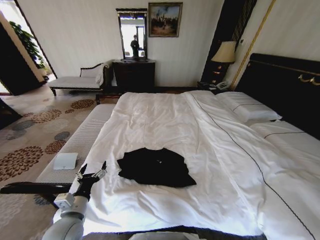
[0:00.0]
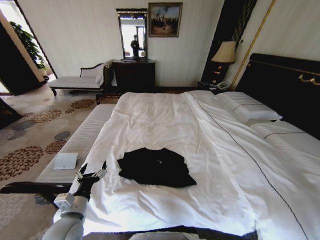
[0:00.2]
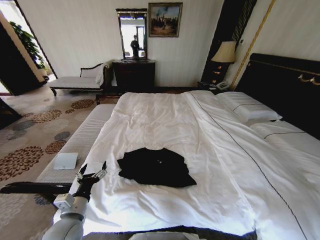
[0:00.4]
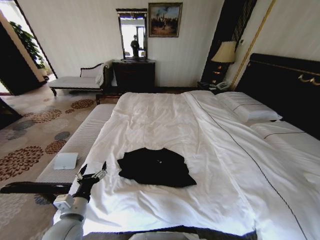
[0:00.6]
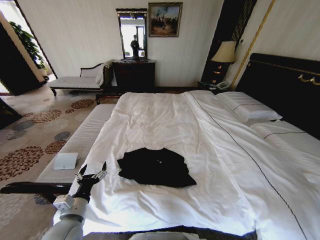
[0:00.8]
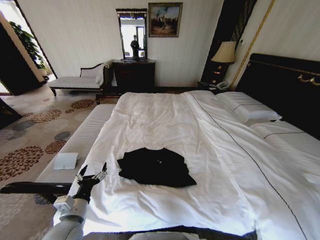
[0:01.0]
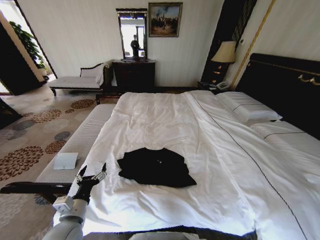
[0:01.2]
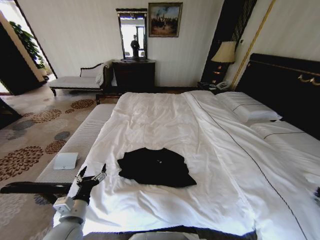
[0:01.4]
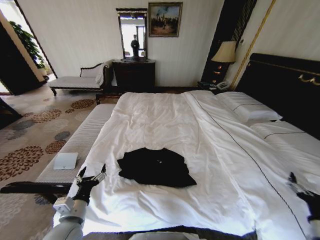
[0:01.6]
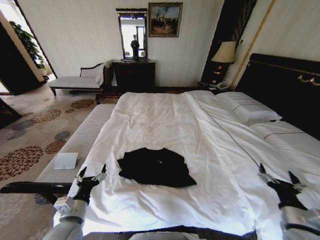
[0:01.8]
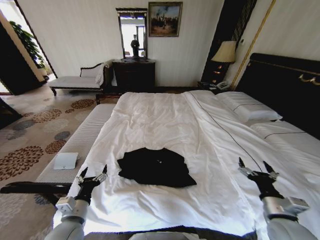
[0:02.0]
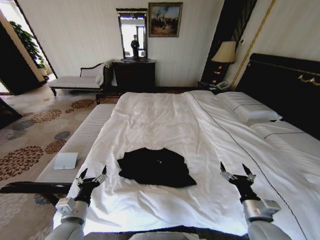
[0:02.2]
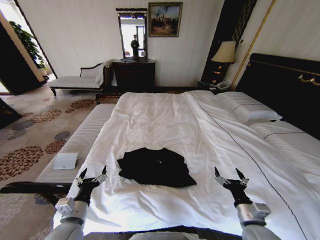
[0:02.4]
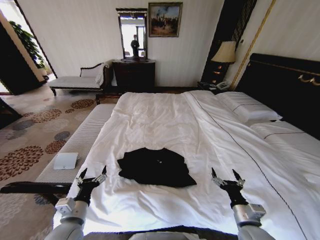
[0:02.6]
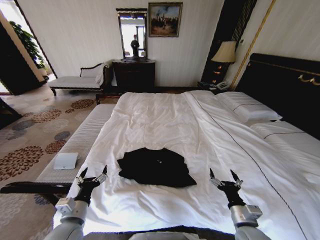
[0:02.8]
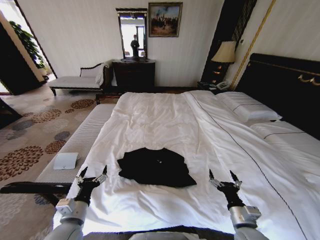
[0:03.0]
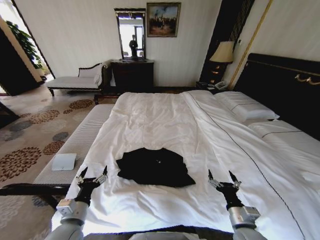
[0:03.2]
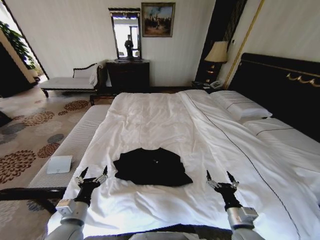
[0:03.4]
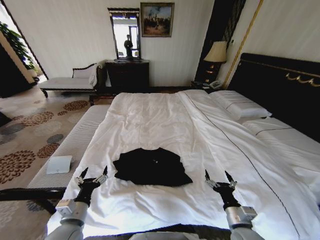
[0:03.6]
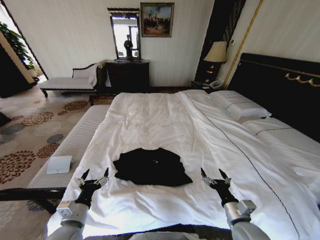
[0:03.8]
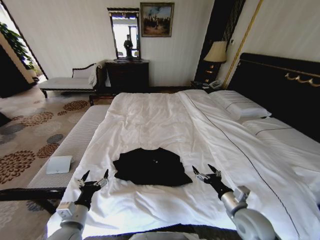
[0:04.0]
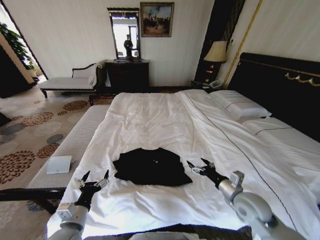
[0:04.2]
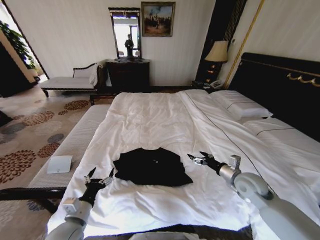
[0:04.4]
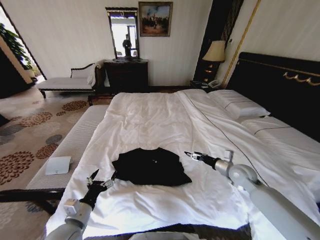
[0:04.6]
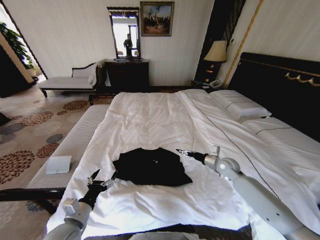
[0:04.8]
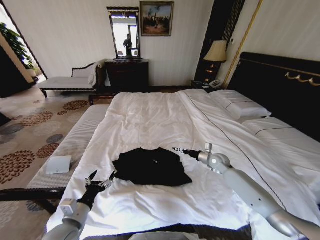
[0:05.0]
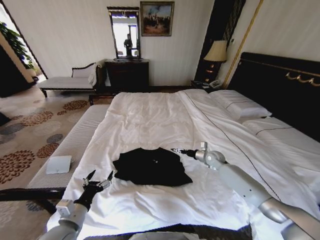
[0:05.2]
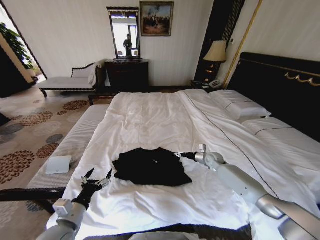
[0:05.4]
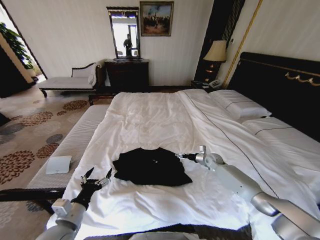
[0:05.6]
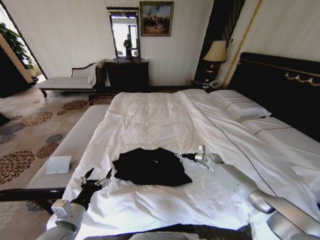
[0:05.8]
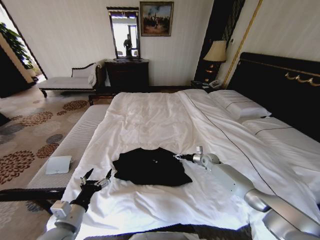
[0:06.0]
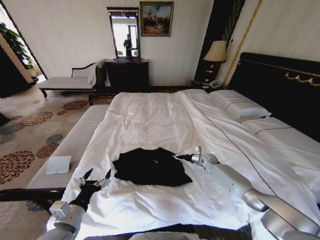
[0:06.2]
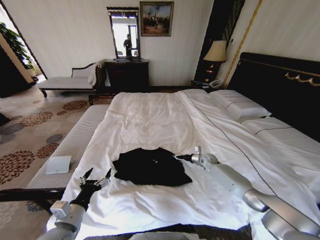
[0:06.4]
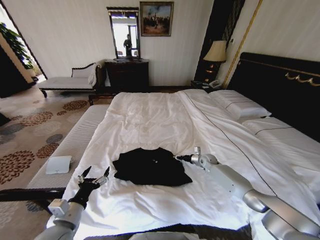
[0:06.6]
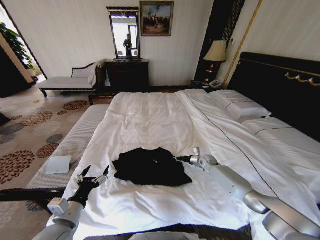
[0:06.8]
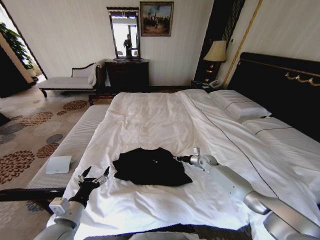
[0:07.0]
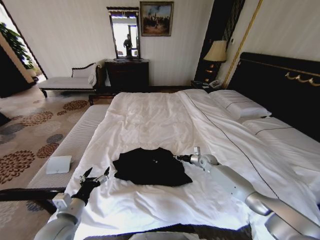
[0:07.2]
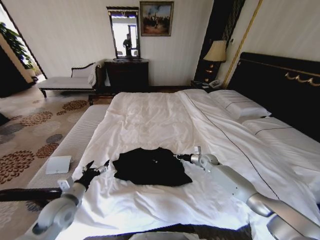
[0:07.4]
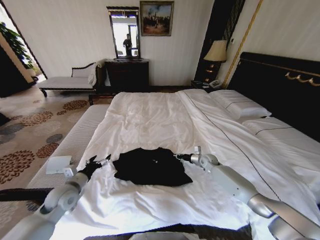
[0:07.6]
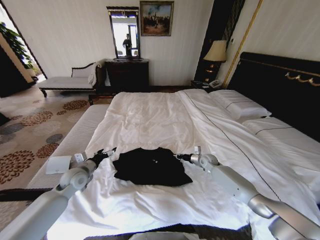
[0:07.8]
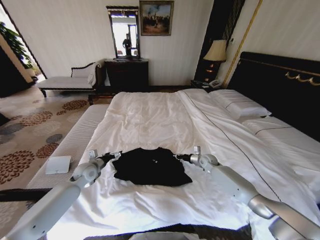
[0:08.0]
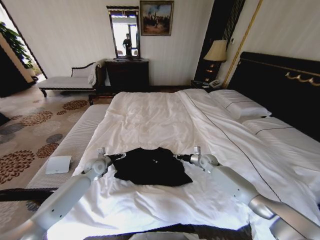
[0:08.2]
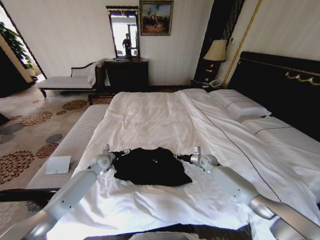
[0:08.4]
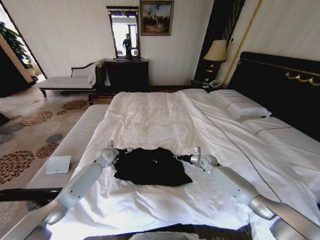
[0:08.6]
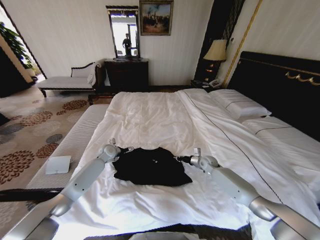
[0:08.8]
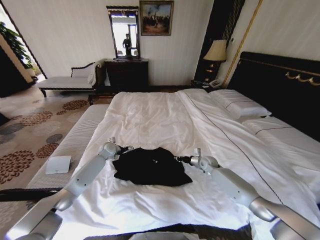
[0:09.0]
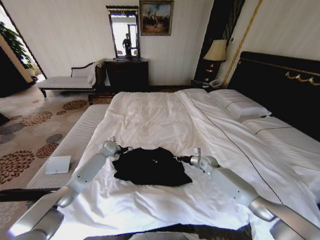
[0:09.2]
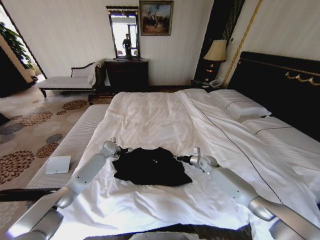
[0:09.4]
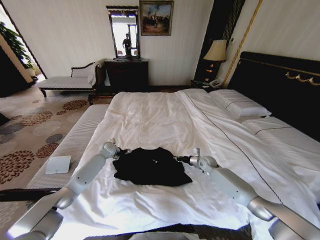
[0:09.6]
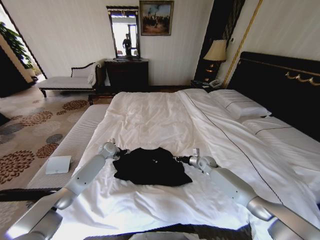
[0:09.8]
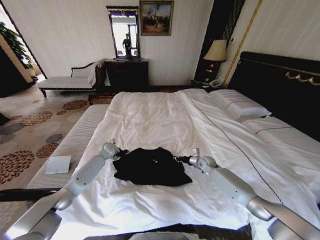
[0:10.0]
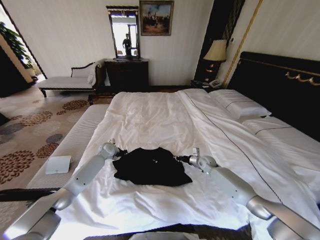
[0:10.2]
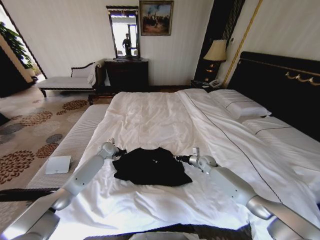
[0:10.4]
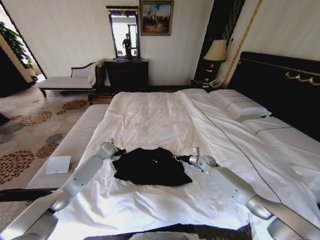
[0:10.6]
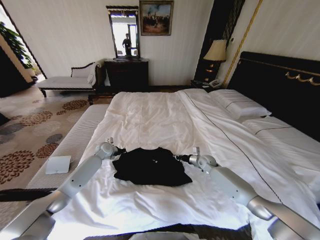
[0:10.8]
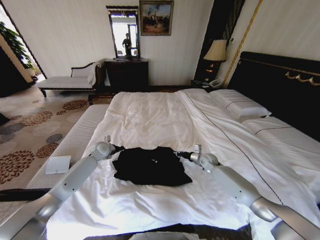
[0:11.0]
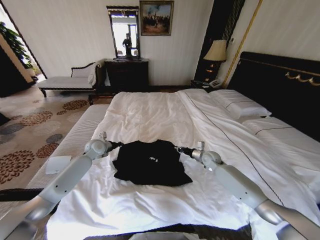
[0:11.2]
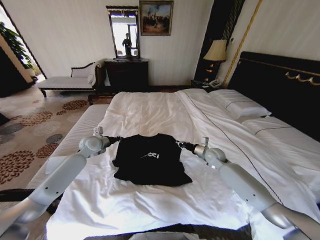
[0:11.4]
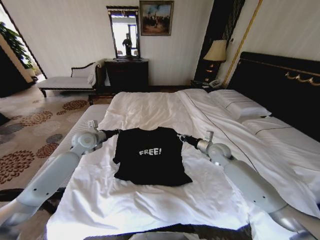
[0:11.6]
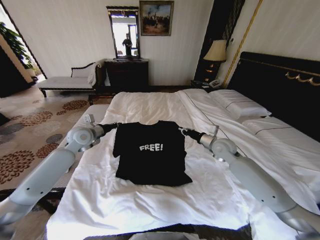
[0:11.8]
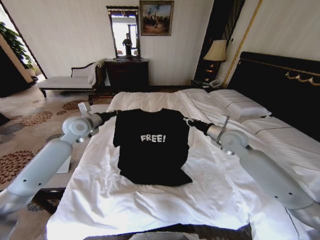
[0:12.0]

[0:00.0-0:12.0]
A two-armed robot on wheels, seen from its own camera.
Task of the whole recording: Fold the clothes on the bed.
0:00.0 to 0:01.6: The right gripper heads to the left and forward, covering about 20 cm, and opens its fingers.
0:01.6 to 0:03.0: The right gripper goes approximately 15 cm to the left.
0:03.0 to 0:04.4: The right gripper moves forward and upward, some 20 cm.
0:04.4 to 0:06.0: The right gripper heads forward and downward, covering roughly 25 cm.
0:06.0 to 0:07.6: The left gripper shifts roughly 15 cm forward and to the left. Meanwhile the right gripper closes its fingers.
0:07.6 to 0:09.0: The left gripper is displaced forward by about 25 cm.
0:09.0 to 0:10.4: The left gripper closes its fingers.
0:10.4 to 0:12.0: The grippers both shift upward by roughly 25 cm.

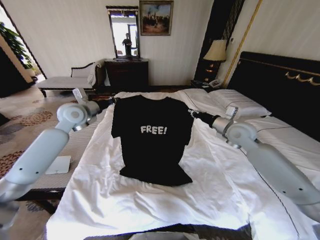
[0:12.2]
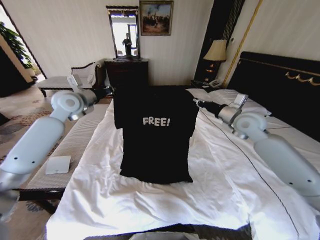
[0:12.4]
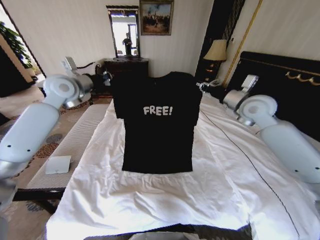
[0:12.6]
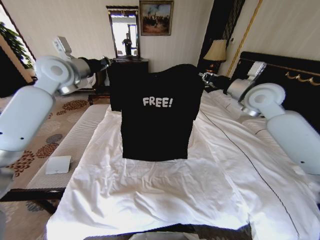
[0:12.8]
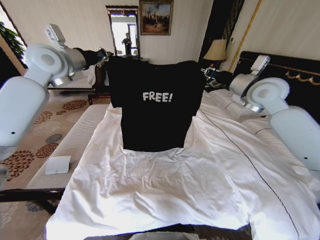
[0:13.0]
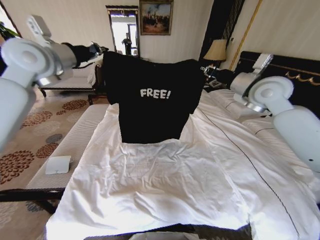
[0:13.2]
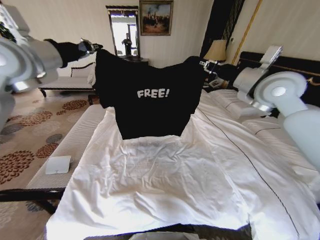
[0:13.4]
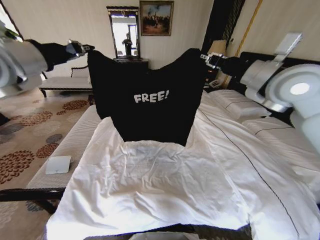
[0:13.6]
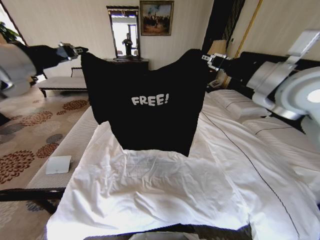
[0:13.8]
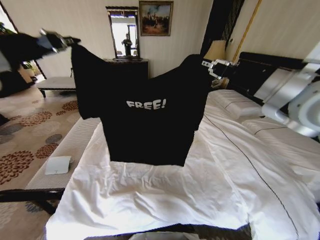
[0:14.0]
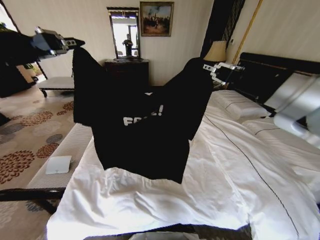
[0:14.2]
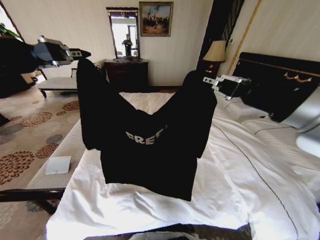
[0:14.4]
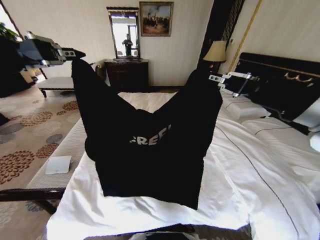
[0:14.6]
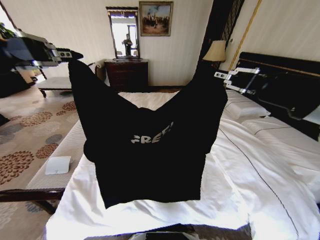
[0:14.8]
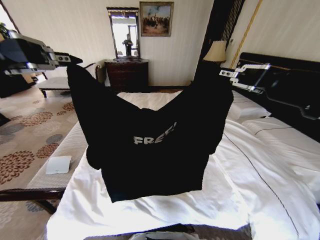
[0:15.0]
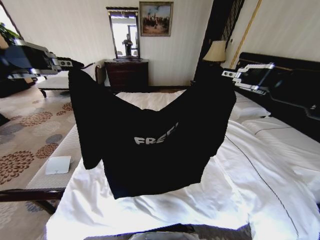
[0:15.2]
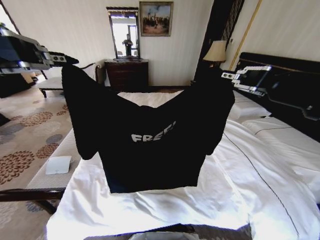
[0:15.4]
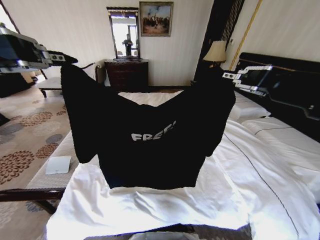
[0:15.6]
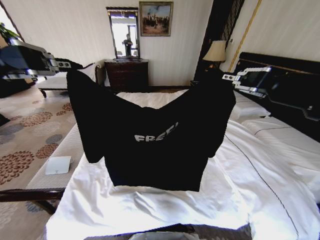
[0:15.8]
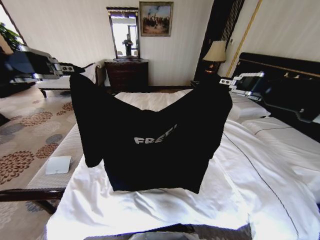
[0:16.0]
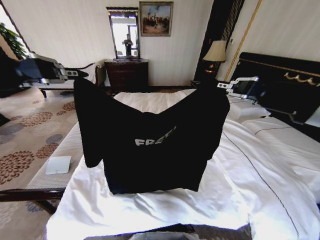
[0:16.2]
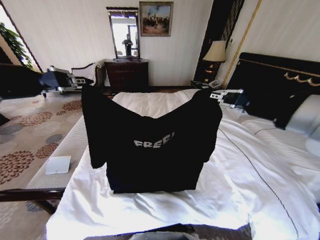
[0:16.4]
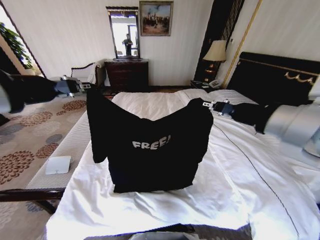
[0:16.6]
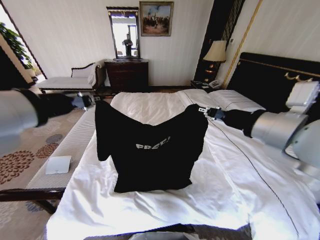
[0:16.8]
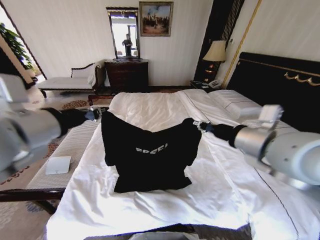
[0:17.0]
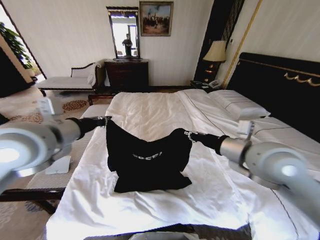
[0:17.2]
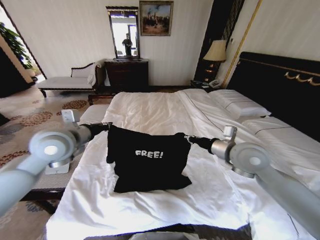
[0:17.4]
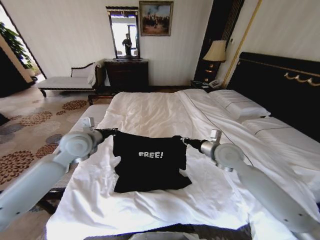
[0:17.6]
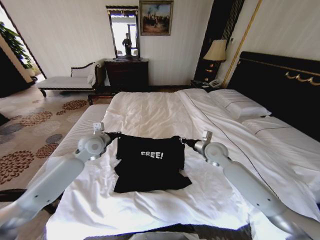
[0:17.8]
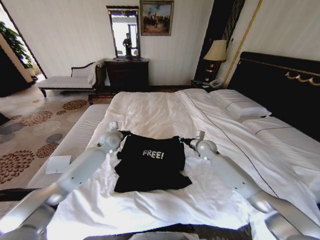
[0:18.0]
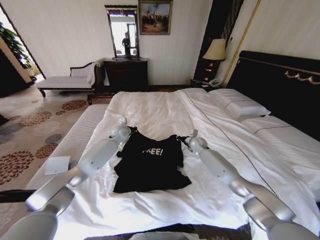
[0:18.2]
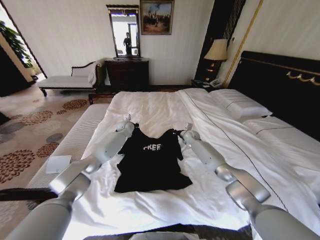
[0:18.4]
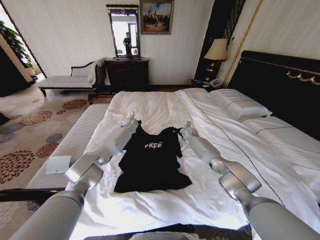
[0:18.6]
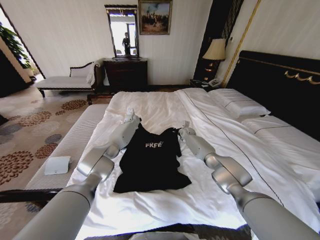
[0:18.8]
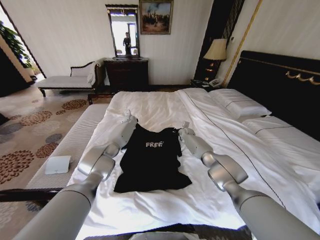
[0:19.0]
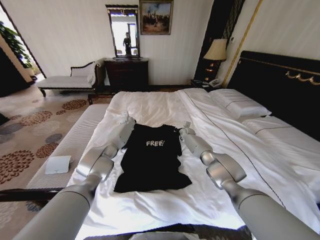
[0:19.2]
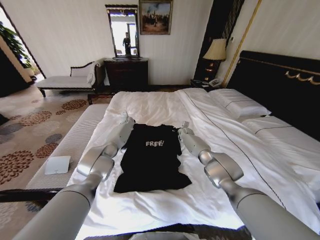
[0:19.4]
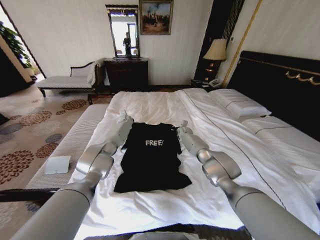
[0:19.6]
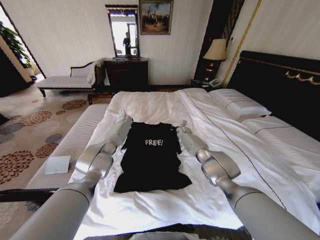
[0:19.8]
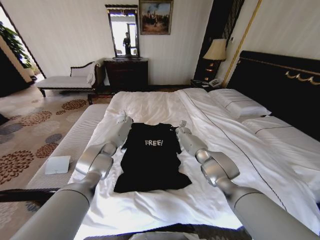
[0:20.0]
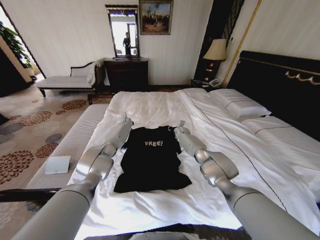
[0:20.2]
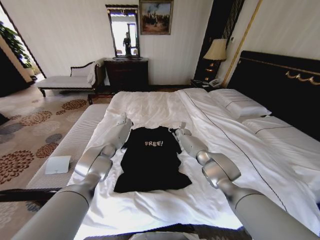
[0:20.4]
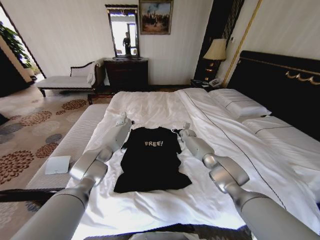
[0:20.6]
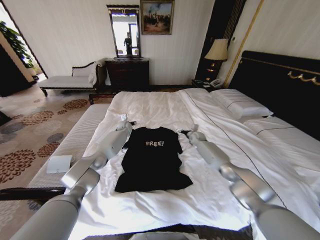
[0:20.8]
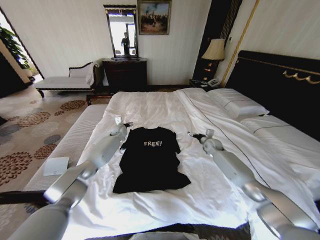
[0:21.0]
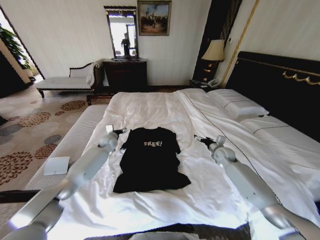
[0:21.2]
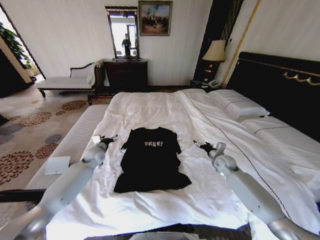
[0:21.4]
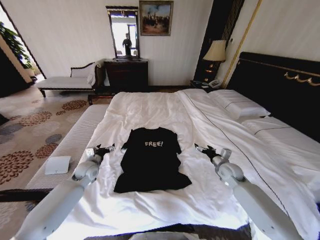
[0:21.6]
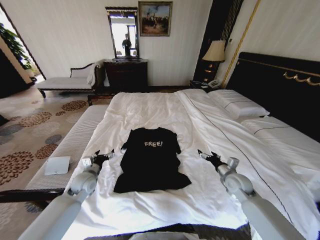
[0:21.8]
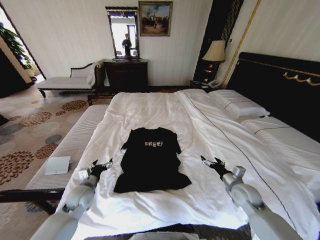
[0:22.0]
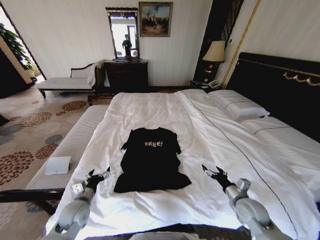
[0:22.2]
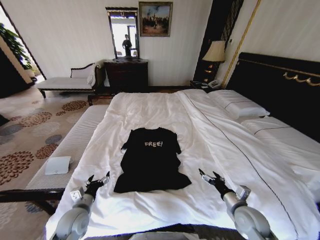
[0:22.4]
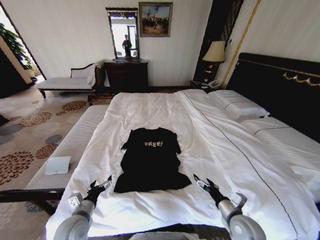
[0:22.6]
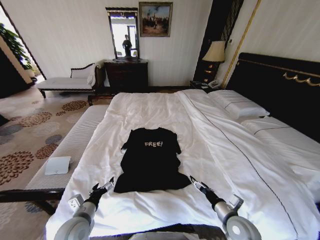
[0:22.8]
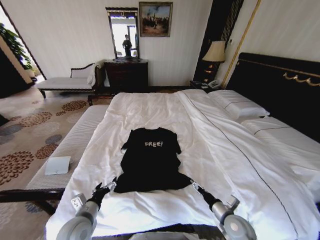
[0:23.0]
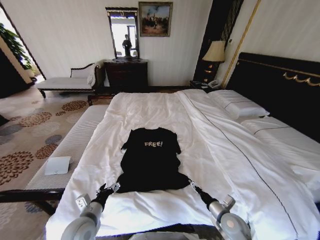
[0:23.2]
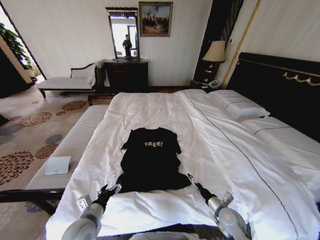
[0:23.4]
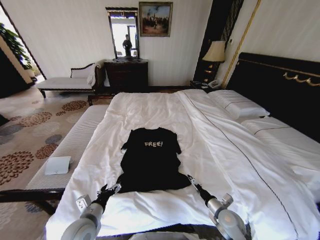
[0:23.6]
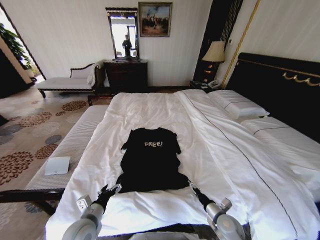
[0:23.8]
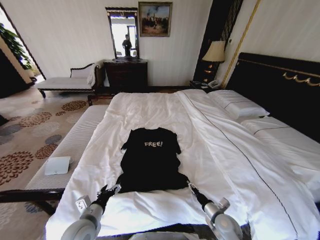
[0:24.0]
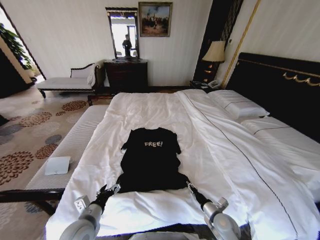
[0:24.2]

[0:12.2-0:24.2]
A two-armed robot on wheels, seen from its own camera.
Task of the whole recording: Fold the clothes on the bed.
0:12.2 to 0:13.8: Both grippers move upward and backward, approximately 20 cm.
0:13.8 to 0:15.2: The grippers both shift backward by some 20 cm.
0:15.2 to 0:16.6: The right gripper shifts by approximately 5 cm. The left gripper travels forward by approximately 5 cm.
0:16.6 to 0:18.2: The two grippers go roughly 50 cm downward and forward.
0:18.2 to 0:19.8: The left gripper heads forward, covering roughly 15 cm, while the right gripper travels forward and to the left by some 15 cm.
0:19.8 to 0:21.2: The left gripper heads backward and to the left, covering about 20 cm, and opens up; the right gripper moves backward and to the right, roughly 25 cm, and opens.
0:21.2 to 0:22.6: The grippers both shift backward by some 35 cm.
0:22.6 to 0:24.2: The right gripper moves downward, roughly 10 cm, and closes its fingers.
